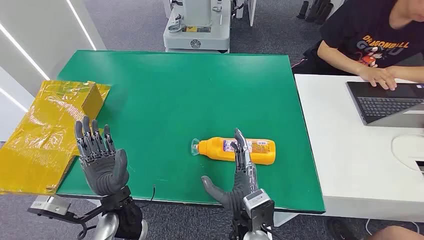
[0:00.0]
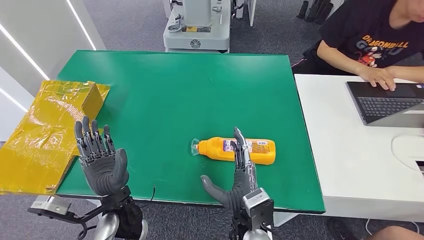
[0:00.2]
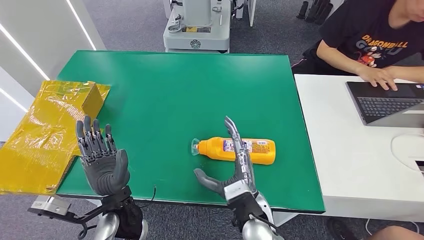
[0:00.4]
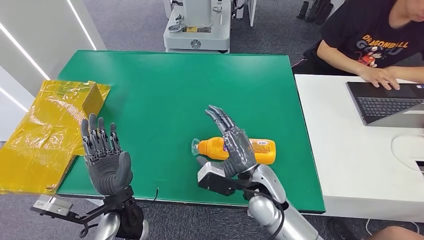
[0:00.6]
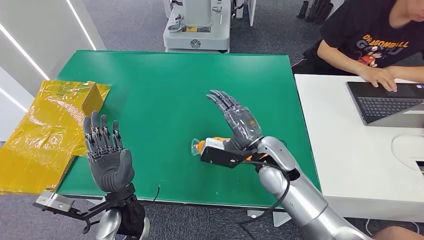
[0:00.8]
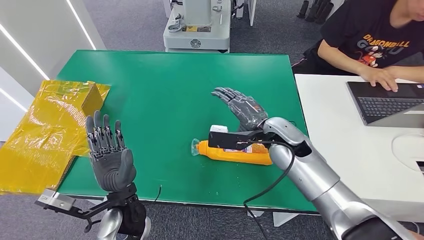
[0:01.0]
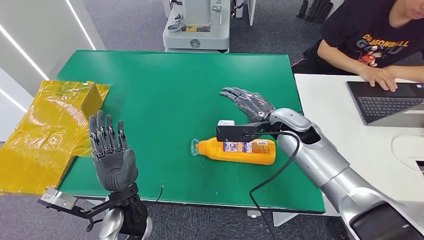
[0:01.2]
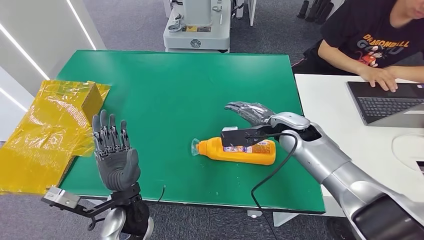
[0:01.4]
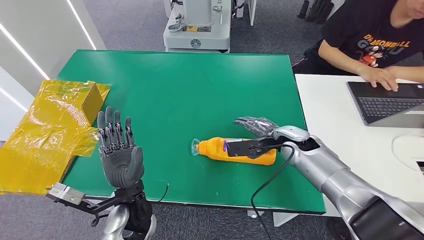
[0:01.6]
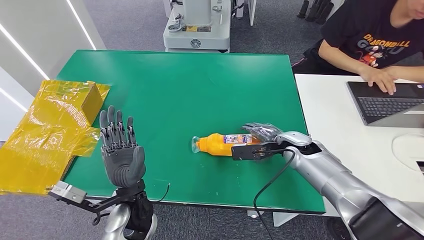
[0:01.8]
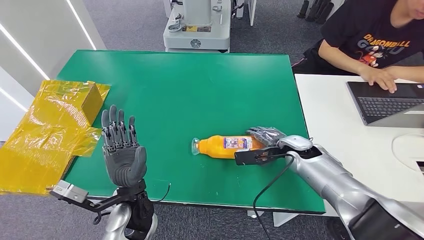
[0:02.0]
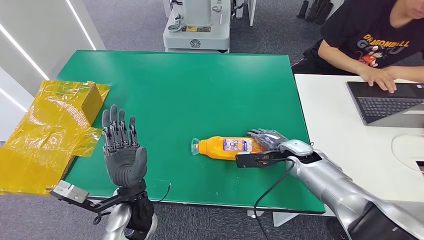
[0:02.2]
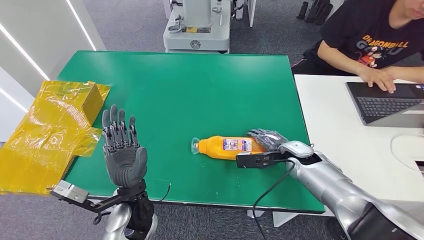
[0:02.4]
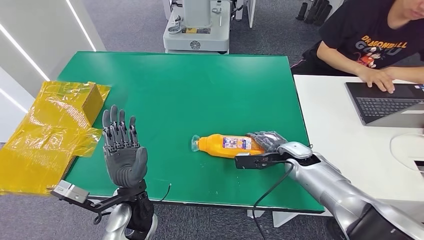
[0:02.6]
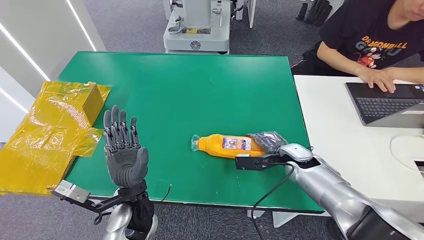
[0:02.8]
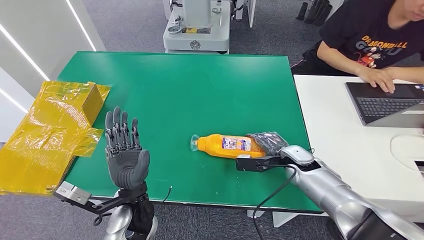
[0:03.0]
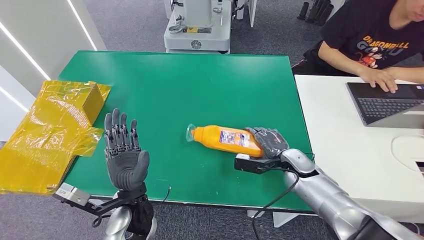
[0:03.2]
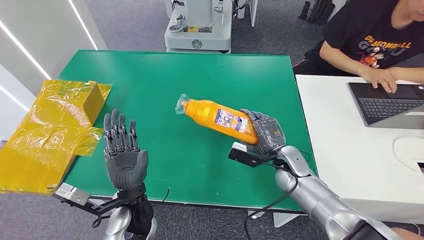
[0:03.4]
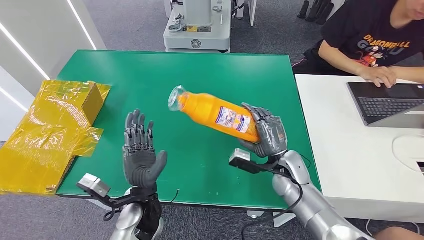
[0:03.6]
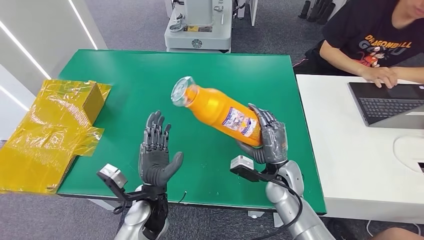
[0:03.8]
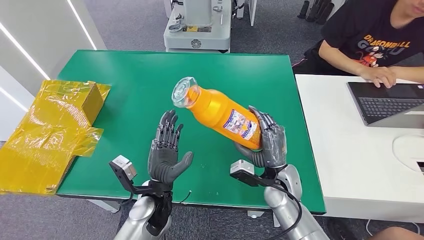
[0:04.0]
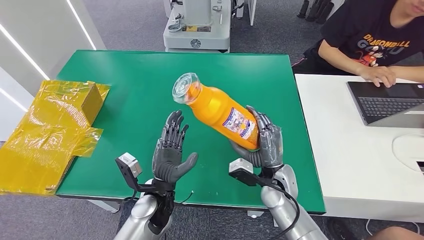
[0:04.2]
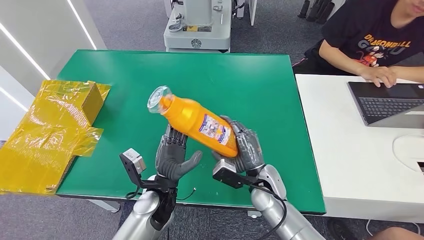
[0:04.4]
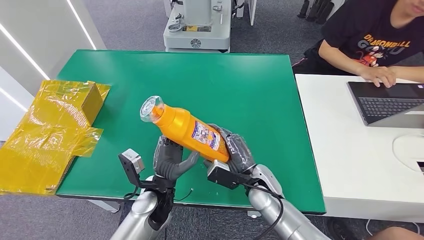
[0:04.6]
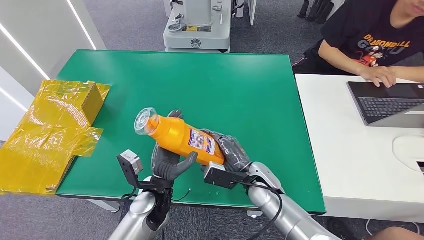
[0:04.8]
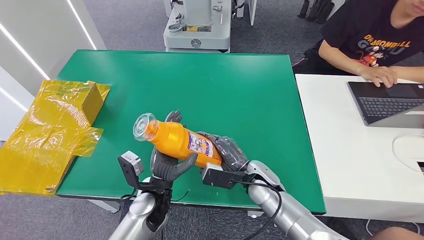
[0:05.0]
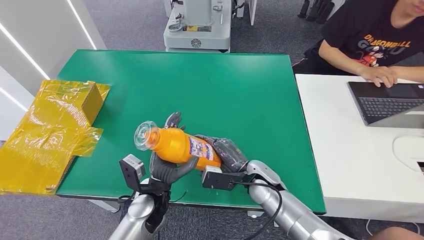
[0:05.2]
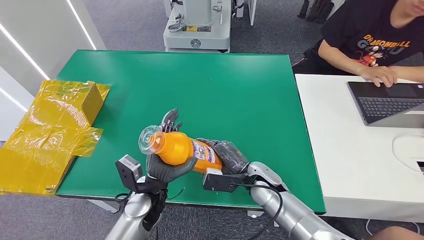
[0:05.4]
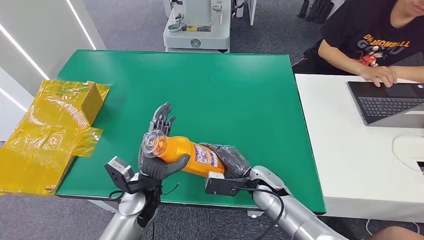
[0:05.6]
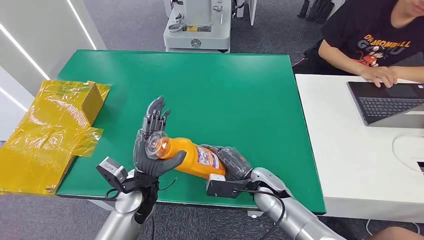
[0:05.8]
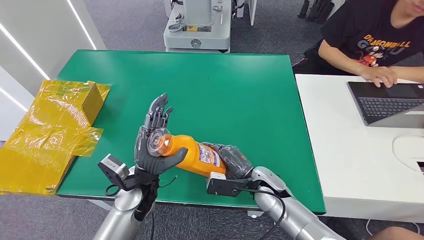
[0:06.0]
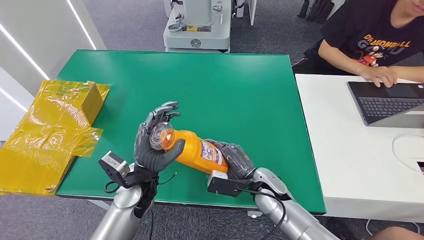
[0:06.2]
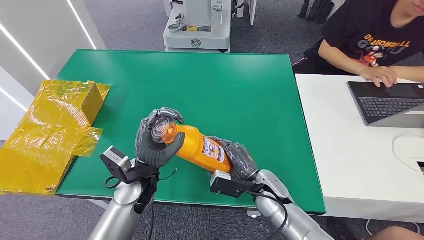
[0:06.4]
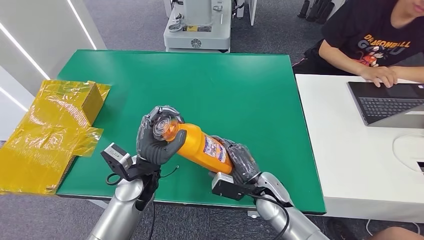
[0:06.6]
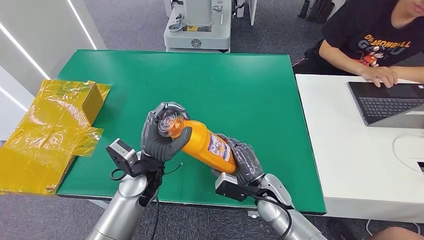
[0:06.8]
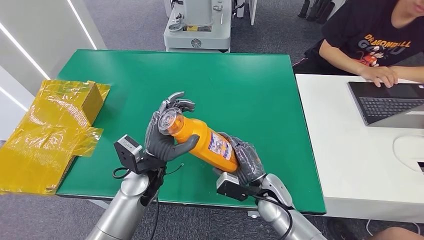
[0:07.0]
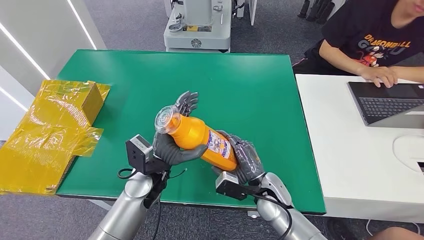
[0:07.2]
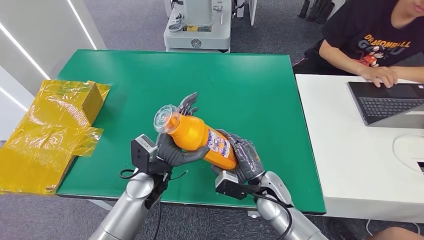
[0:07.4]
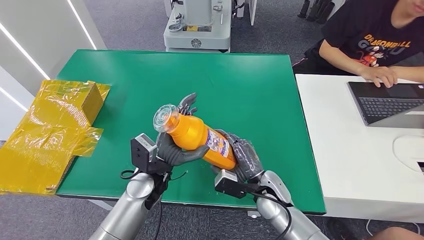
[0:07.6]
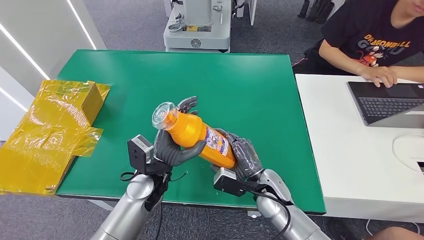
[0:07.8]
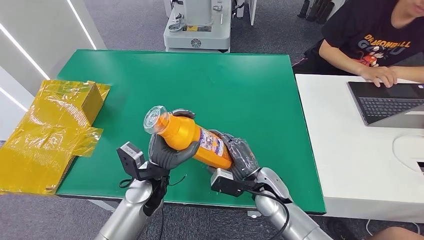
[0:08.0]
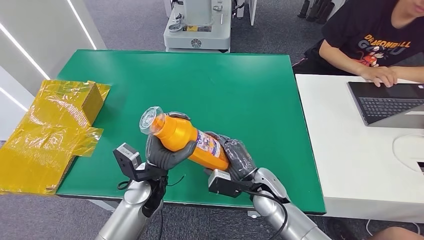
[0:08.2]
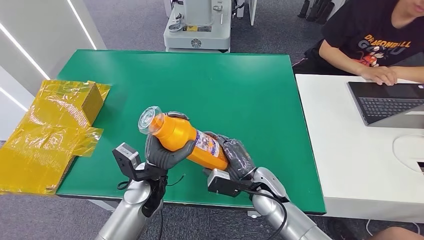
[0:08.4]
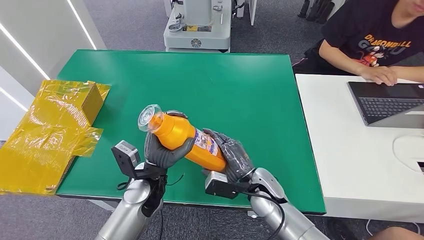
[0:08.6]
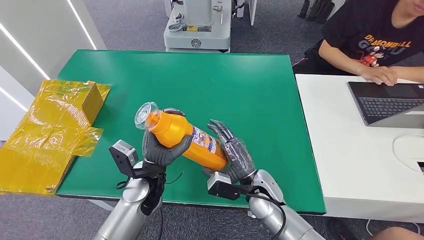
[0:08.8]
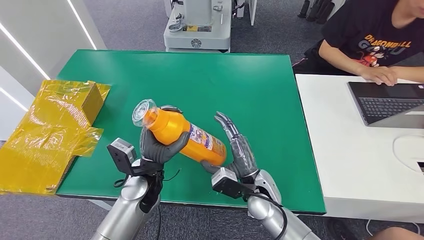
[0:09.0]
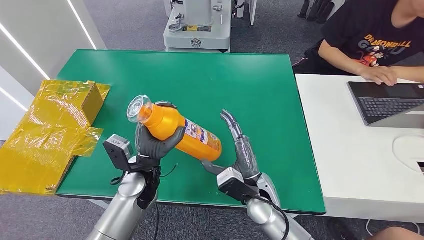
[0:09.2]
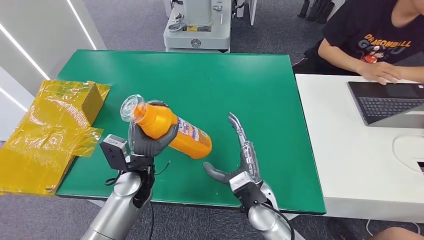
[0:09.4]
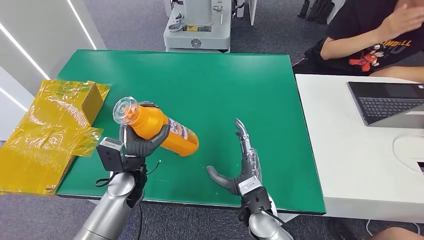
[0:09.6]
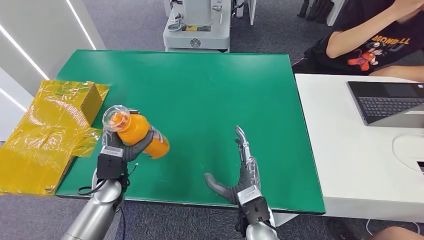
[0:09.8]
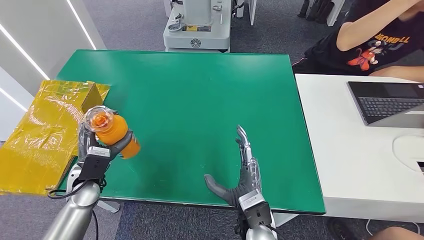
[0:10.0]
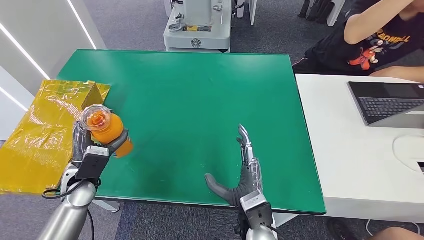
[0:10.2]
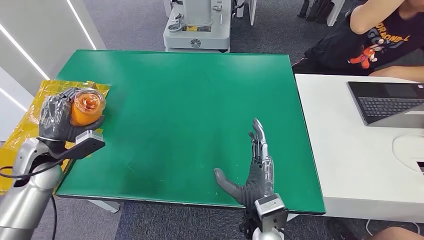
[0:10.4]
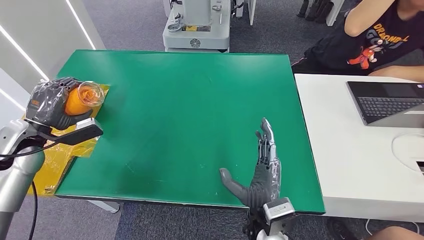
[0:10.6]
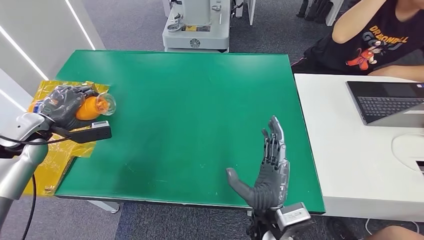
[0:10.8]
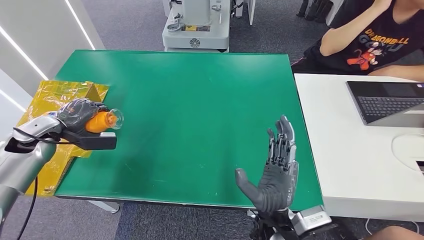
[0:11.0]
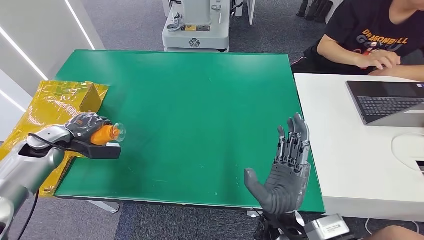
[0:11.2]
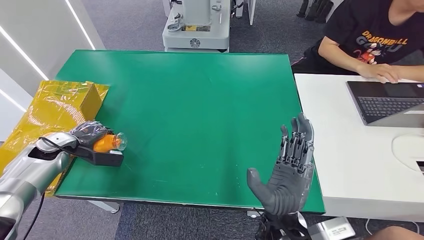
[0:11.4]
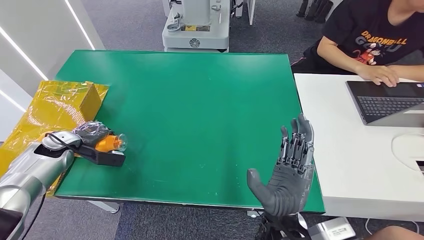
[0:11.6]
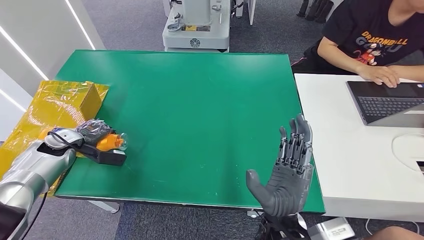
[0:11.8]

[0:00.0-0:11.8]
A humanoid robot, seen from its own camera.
Step, 0:00.0 to 0:04.0: Pick up the bottle from the table.
0:01.4 to 0:03.0: The right hand is displaced downward and to the right by approximately 15 cm.
0:04.4 to 0:06.0: The left hand changes place by roughly 5 cm.
0:07.4 to 0:08.8: The hands move only a little.
0:10.4 to 0:11.8: The right hand moves about 5 cm; the left hand shifts about 10 cm forward, downward and to the left.

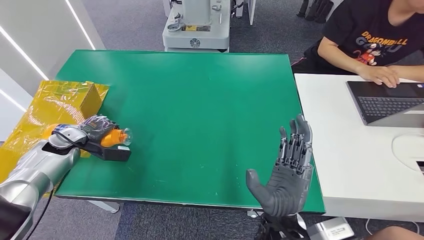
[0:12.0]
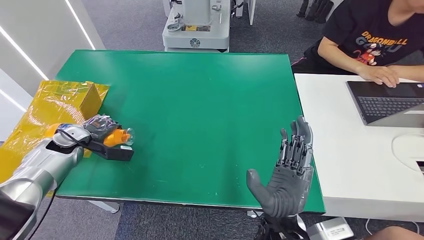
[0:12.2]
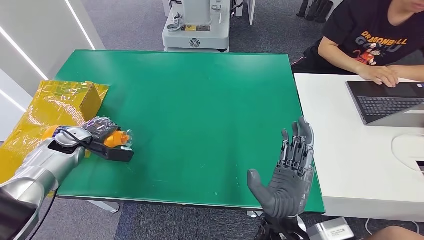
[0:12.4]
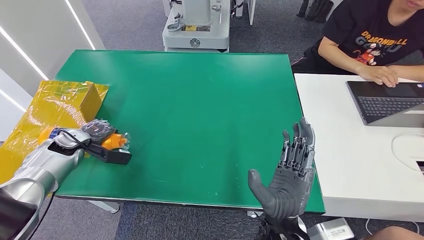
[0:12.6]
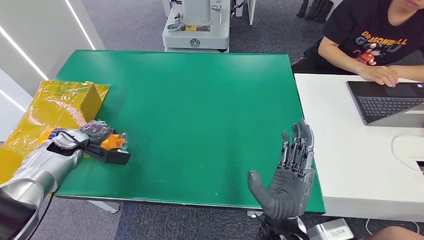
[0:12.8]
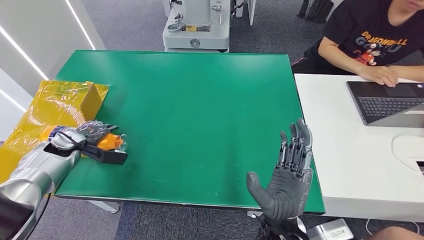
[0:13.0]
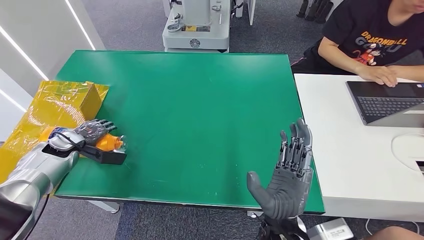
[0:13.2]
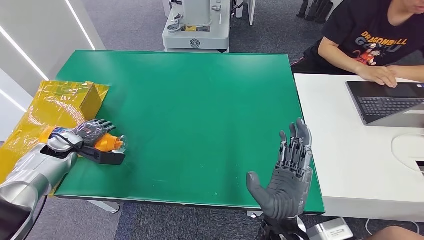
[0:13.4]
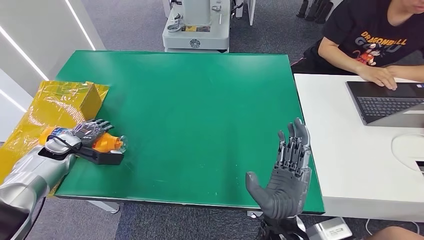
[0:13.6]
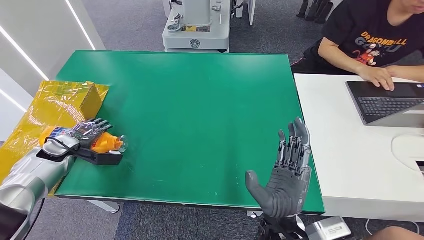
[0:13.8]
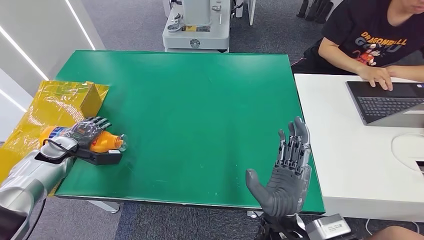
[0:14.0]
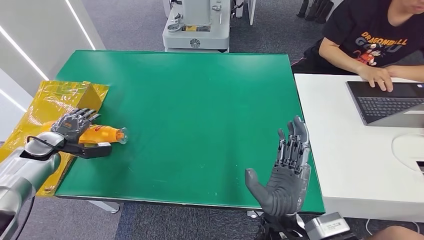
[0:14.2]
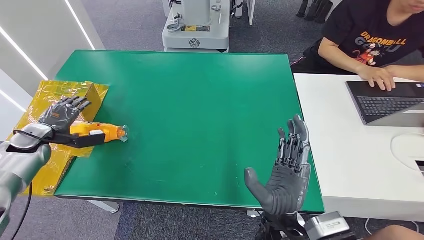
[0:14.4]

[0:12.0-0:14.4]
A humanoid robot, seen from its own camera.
Step, 0:12.0 to 0:14.4: Turn the bottle to the front side.
0:12.0 to 0:13.2: There are only small adjustments of the hands.
0:13.2 to 0:14.4: The left hand shifts approximately 5 cm to the left.
